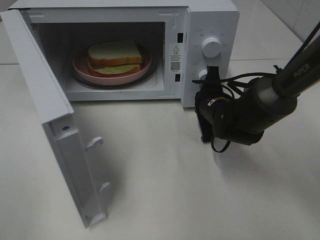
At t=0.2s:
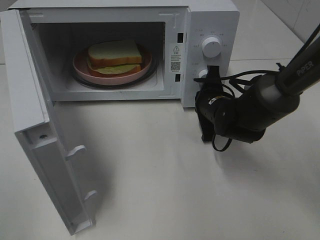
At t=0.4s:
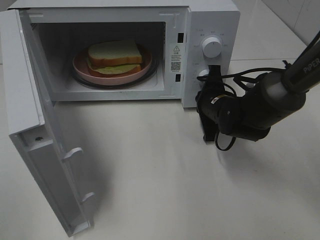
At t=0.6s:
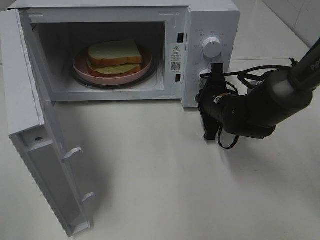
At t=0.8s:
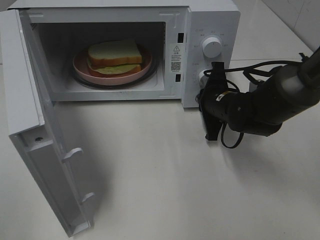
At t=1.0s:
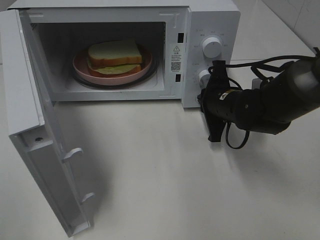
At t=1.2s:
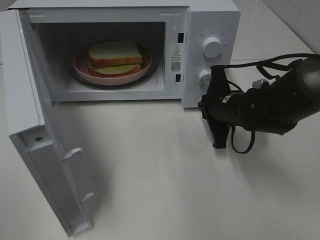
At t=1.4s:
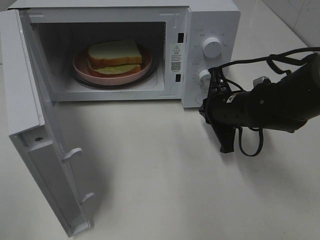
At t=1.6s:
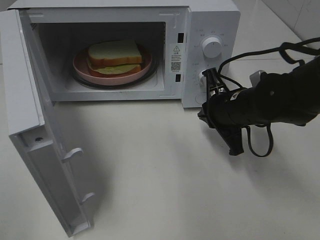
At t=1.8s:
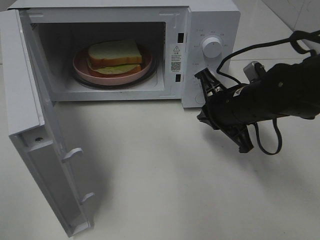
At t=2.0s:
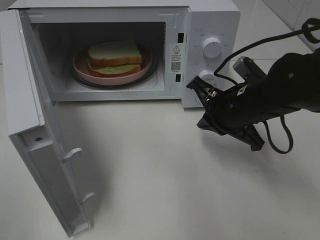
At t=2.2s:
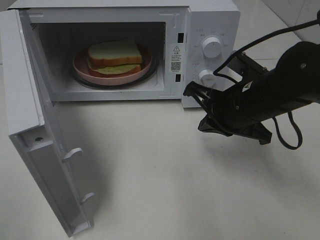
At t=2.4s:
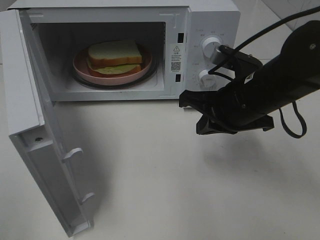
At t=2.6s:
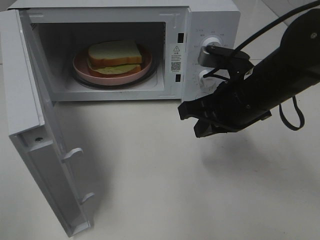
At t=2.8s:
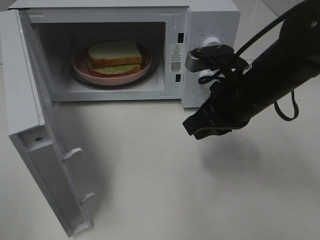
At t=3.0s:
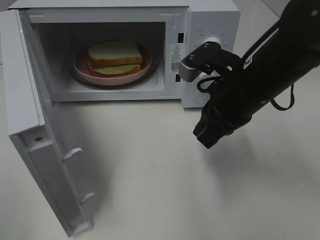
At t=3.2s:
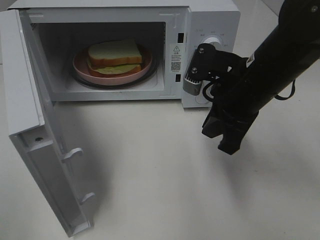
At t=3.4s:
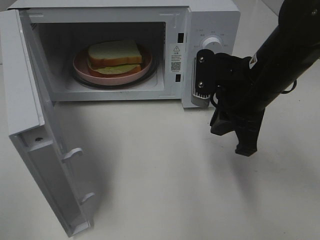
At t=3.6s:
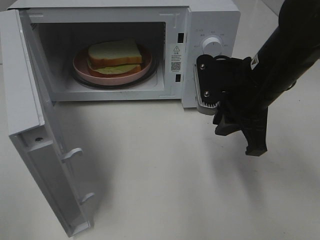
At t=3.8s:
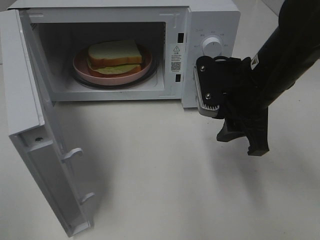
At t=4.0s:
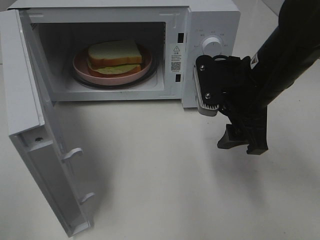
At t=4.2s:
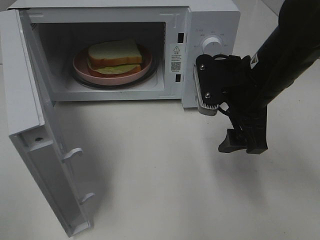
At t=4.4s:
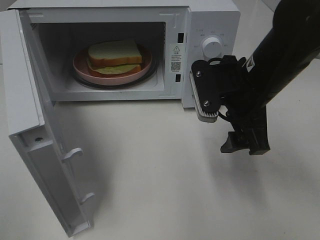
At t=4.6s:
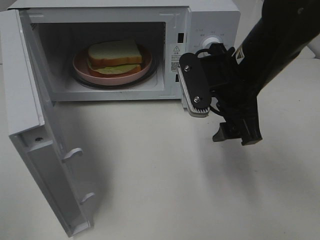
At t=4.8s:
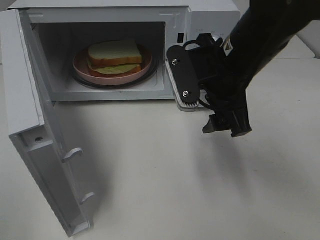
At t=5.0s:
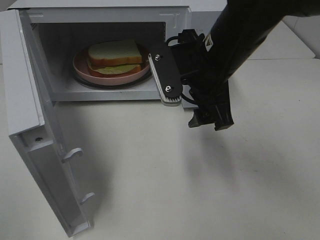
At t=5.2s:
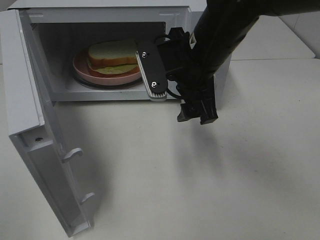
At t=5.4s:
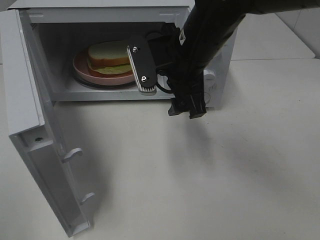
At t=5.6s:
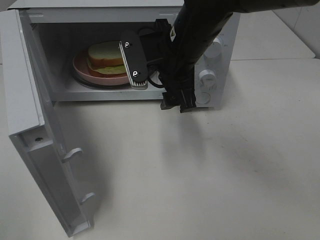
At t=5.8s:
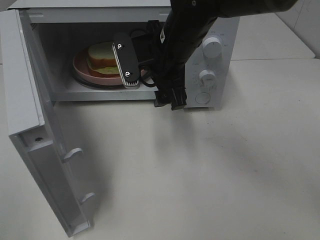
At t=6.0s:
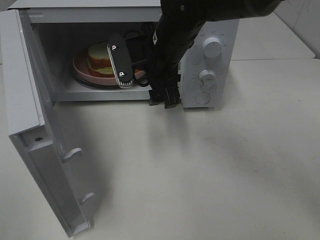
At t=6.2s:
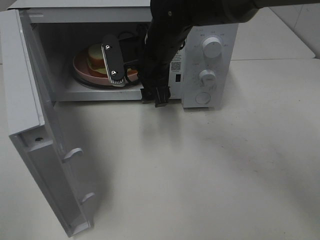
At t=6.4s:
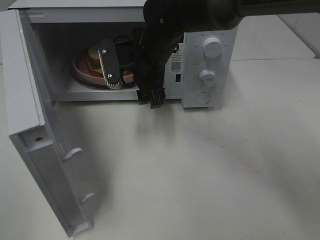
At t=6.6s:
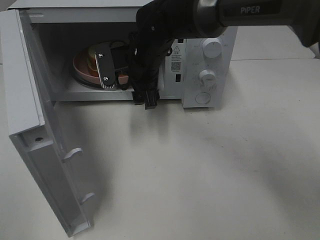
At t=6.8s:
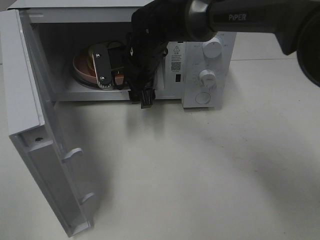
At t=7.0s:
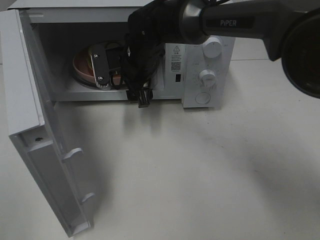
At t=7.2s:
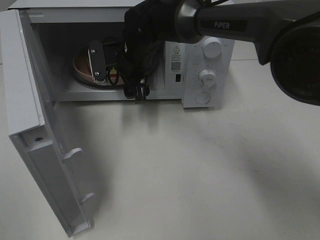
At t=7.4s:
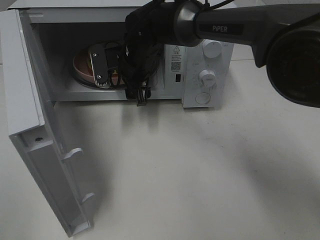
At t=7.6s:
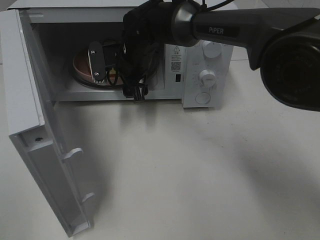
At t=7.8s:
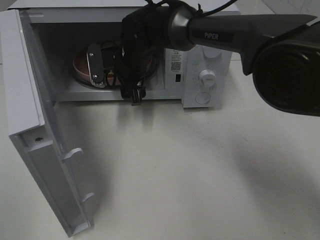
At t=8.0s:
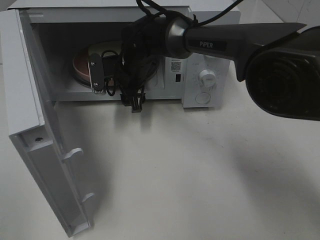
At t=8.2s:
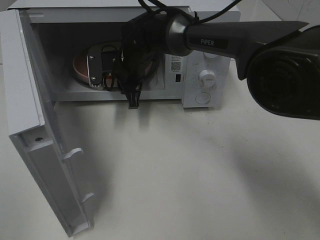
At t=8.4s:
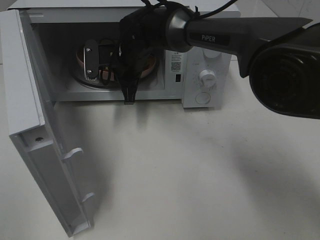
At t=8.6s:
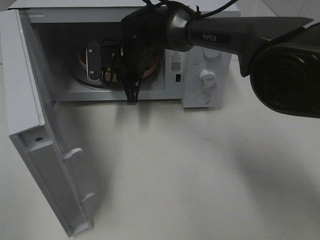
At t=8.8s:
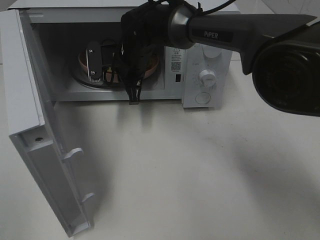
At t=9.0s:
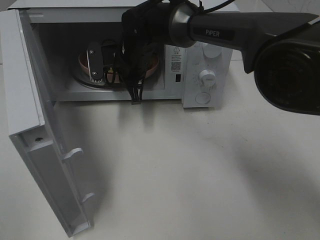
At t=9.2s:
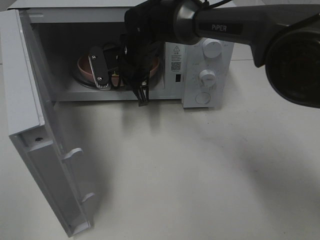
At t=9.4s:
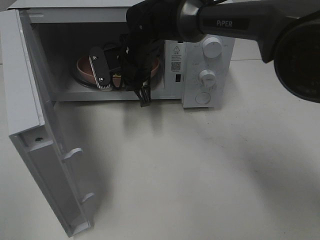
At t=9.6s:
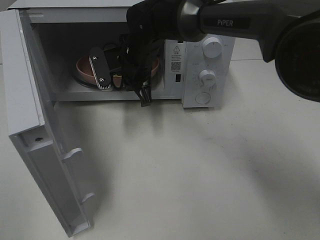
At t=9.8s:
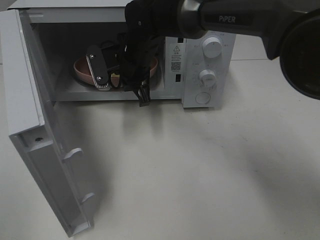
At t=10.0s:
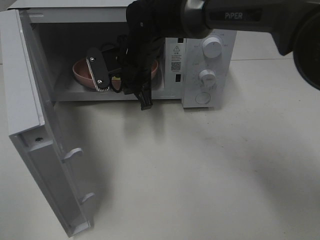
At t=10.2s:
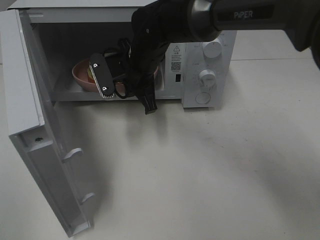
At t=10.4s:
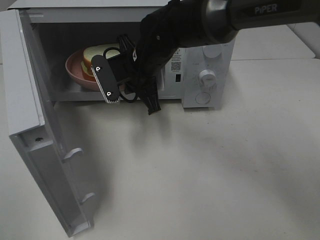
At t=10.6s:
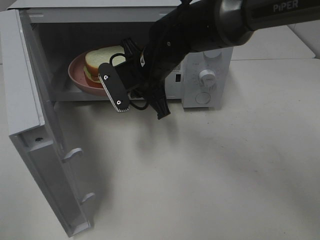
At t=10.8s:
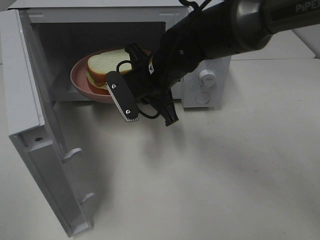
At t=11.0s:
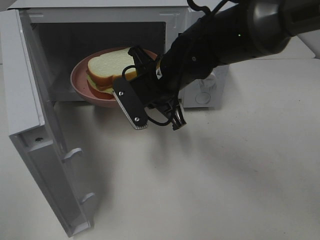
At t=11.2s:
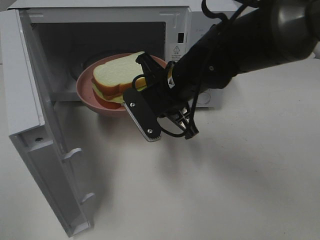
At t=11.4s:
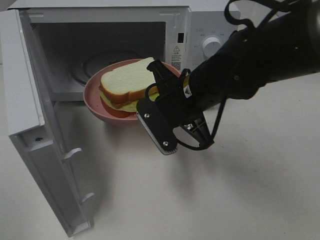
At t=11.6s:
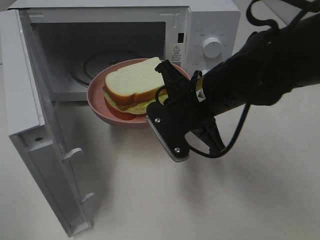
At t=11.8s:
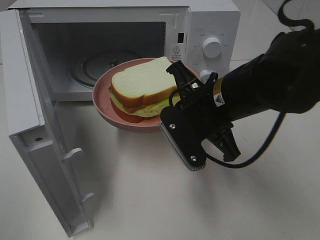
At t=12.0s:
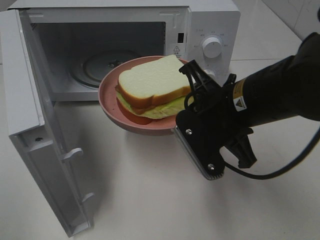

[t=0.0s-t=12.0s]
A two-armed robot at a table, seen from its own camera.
Task of the whole recording: Heat Sandwich.
Step, t=1.2s to t=8.4s: Right hand: grab the plate with the sandwich.
t=0.0s to t=1.6s: The right gripper goes approximately 10 cm backward and upward.
t=1.6s to t=3.0s: The right gripper goes some 10 cm upward.
t=3.0s to t=4.4s: The right gripper opens up.
t=4.4s to t=6.0s: The right gripper heads to the left and forward, covering approximately 15 cm.
t=6.0s to t=7.6s: The right gripper shifts about 10 cm forward, to the left and downward.
t=7.6s to t=9.0s: The right gripper closes its fingers.
t=9.0s to t=10.4s: The right gripper is displaced backward by some 5 cm.
t=10.4s to t=12.0s: The right gripper moves backward and to the right, some 20 cm.

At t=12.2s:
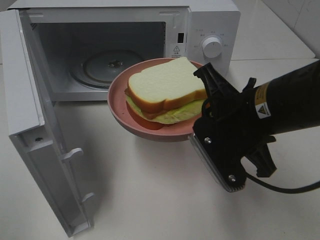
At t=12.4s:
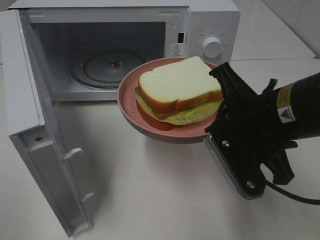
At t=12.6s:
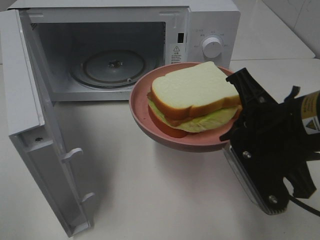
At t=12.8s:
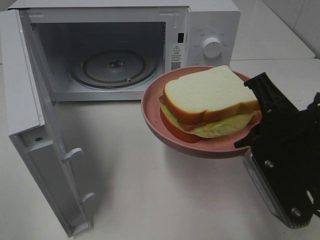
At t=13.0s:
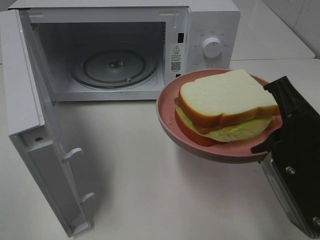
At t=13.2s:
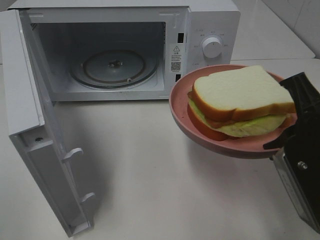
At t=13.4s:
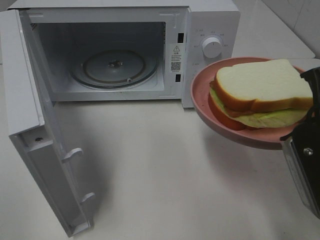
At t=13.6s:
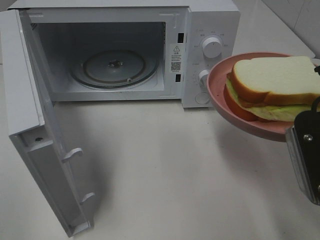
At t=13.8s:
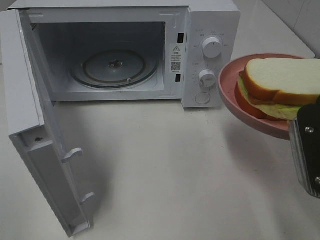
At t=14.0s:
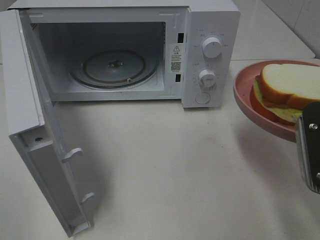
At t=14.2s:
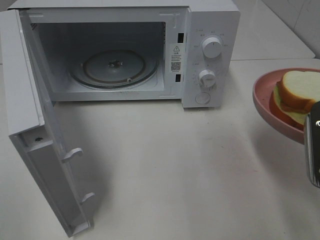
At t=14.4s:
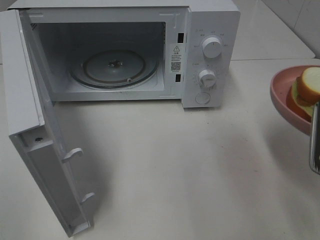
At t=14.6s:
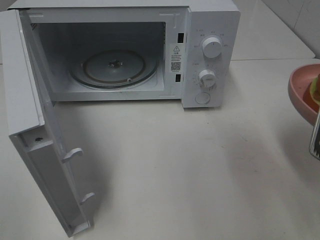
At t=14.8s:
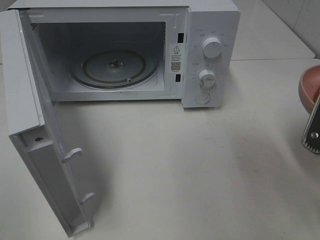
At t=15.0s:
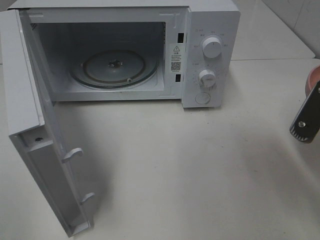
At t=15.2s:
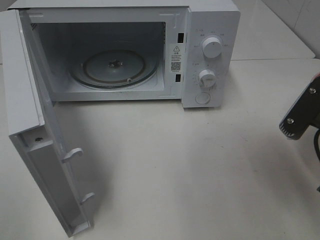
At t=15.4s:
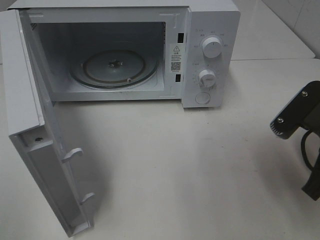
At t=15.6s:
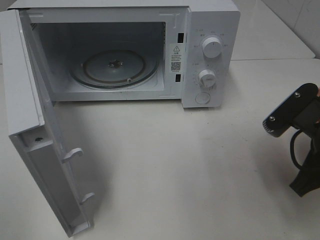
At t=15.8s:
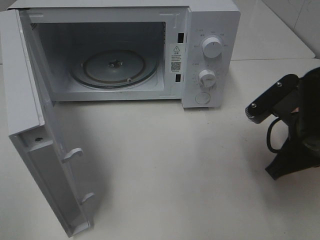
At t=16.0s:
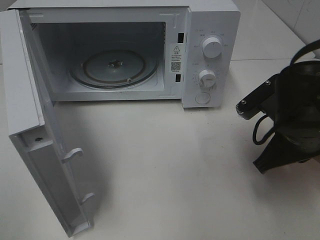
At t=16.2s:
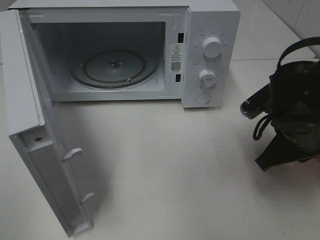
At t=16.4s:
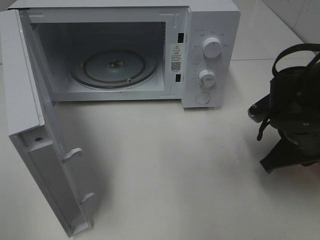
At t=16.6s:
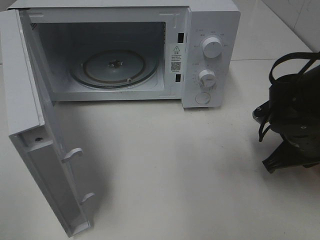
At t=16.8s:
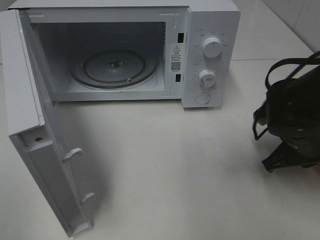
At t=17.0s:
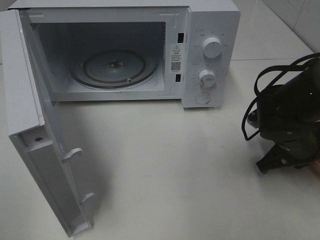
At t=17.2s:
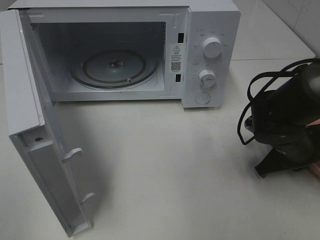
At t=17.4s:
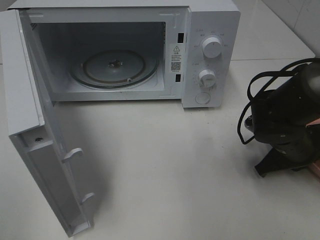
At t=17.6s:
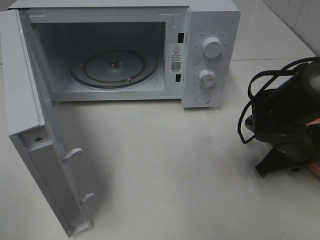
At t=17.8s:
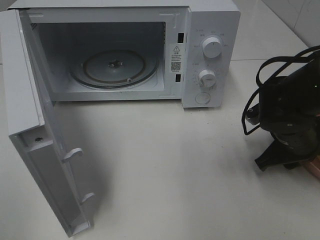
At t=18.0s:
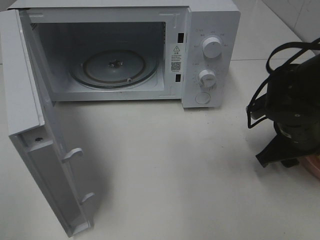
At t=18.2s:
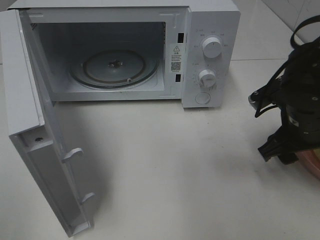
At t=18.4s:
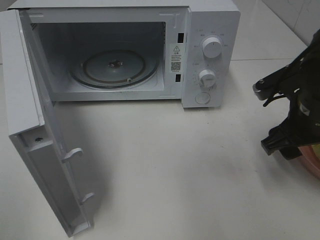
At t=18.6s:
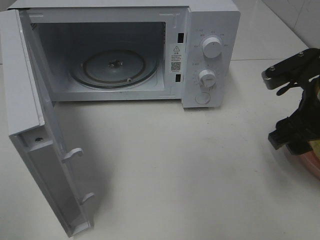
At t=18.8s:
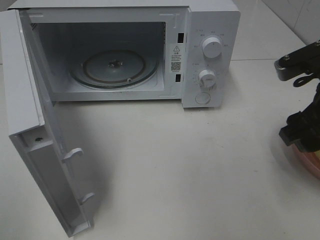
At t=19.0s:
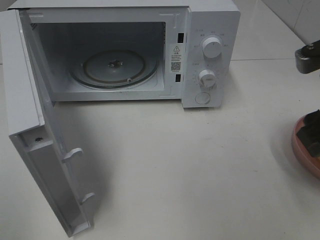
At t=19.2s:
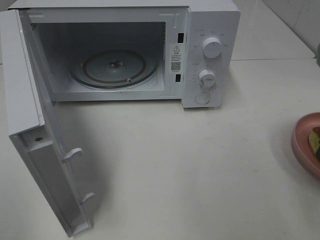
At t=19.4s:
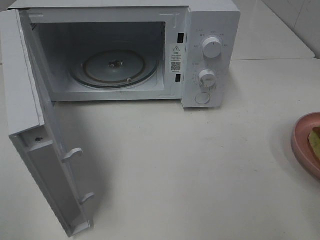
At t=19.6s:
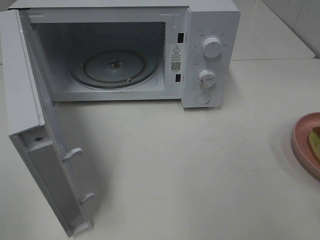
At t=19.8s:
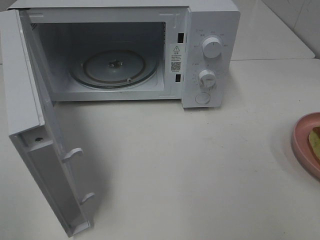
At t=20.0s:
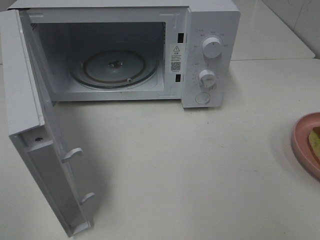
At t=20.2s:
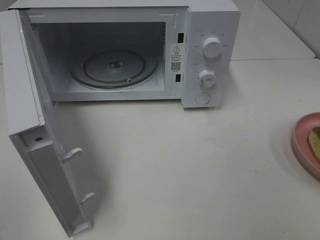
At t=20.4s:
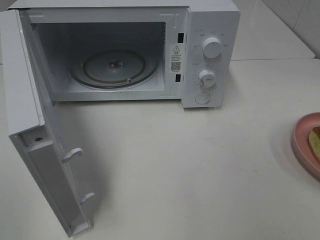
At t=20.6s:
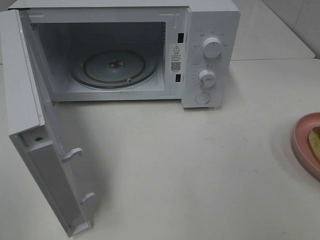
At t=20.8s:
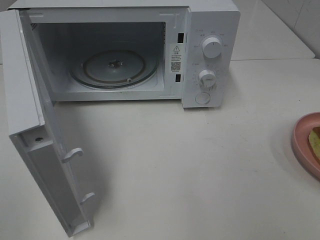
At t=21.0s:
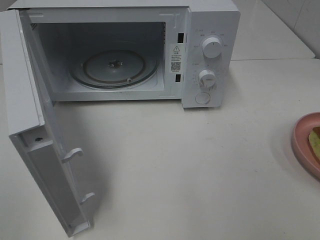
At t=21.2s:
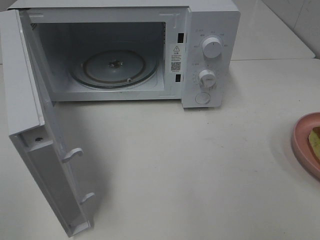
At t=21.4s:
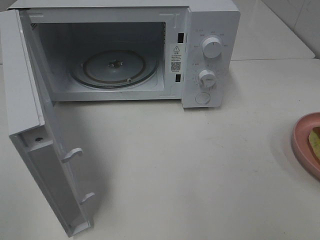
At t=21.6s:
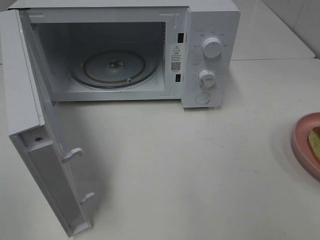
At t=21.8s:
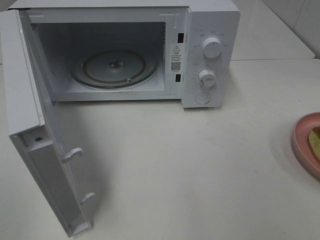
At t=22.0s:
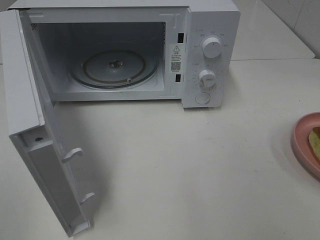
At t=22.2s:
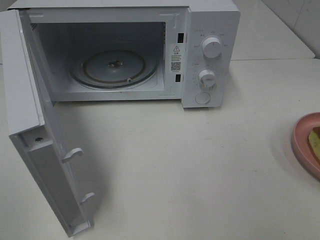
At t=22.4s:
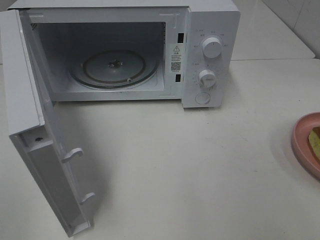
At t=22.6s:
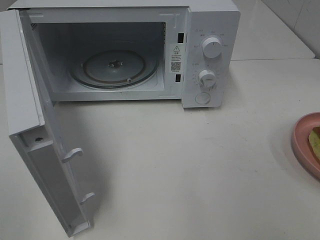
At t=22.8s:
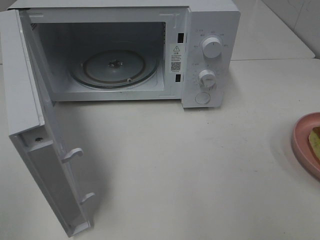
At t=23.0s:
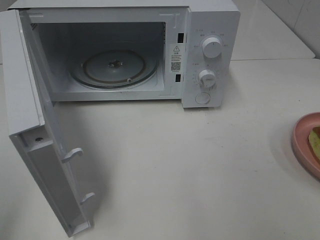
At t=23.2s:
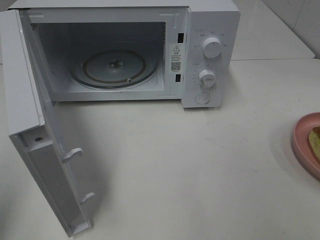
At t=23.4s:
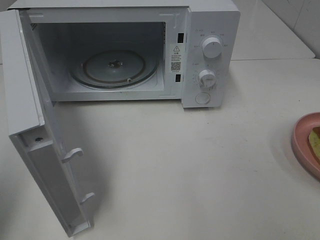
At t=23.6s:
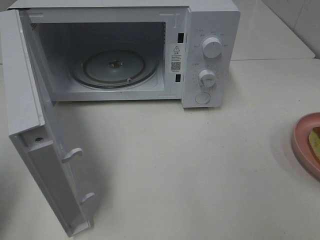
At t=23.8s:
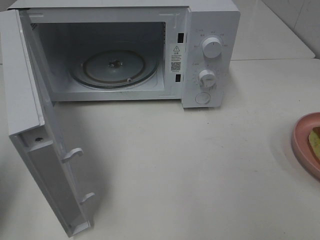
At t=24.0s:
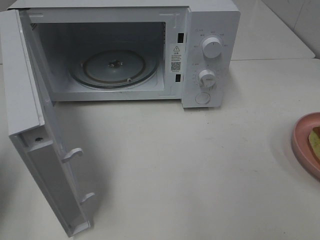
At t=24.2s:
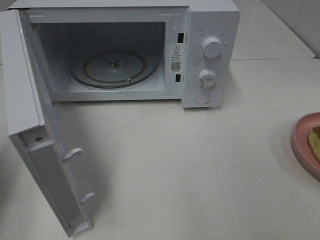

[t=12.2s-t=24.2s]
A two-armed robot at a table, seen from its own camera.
Task of the whole recording: Heat Sandwich.
Step, t=12.2s to t=19.0s: Right hand: place the plate on the table.
t=12.2s to t=13.8s: The right gripper shifts approximately 10 cm to the right and backward.
t=15.2s to t=16.6s: The right gripper is displaced forward and downward by roughly 15 cm.
t=16.6s to t=18.2s: The right gripper opens up.
t=18.2s to t=19.8s: The right gripper is displaced backward and upward by approximately 25 cm.
t=21.2s to t=22.6s: The two grippers keep their place.
t=22.6s to t=24.2s: The left gripper shifts some 20 cm forward, and closes up.
